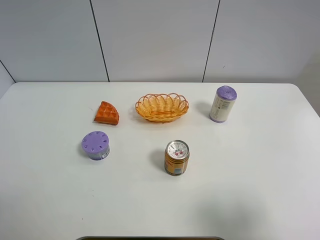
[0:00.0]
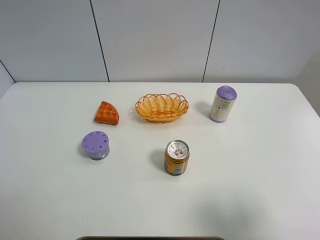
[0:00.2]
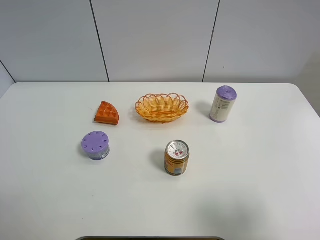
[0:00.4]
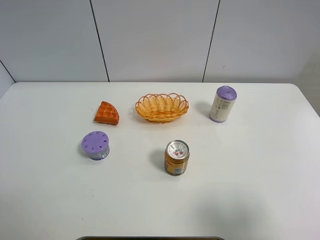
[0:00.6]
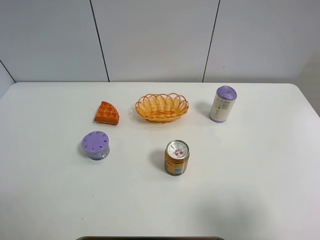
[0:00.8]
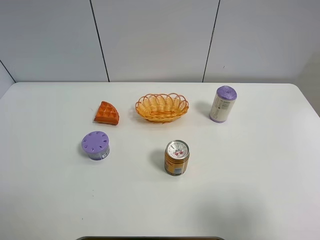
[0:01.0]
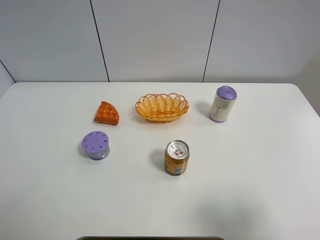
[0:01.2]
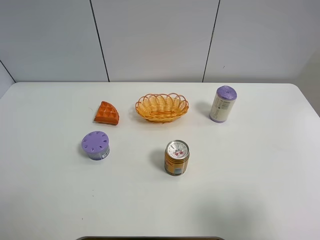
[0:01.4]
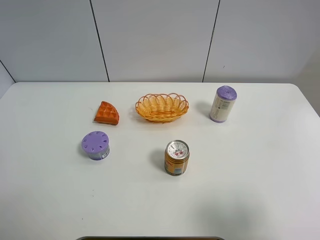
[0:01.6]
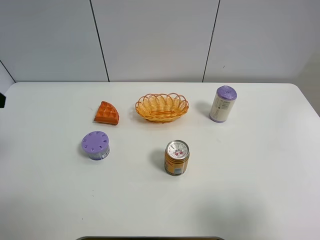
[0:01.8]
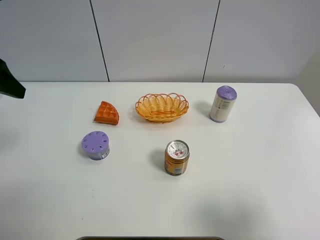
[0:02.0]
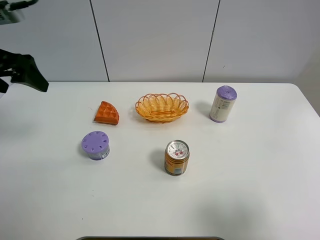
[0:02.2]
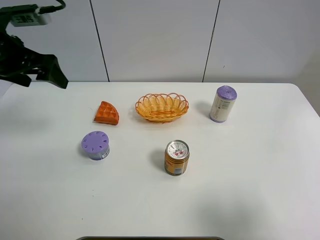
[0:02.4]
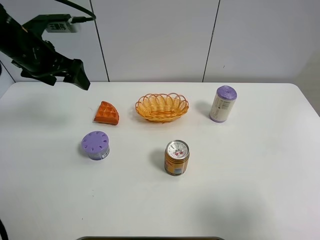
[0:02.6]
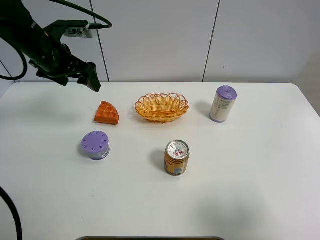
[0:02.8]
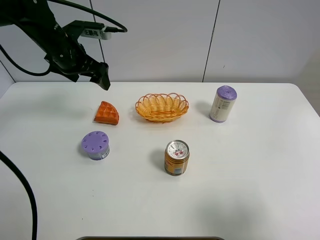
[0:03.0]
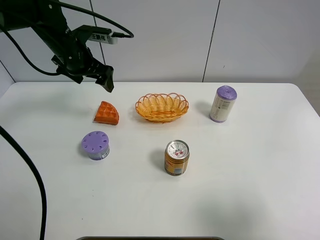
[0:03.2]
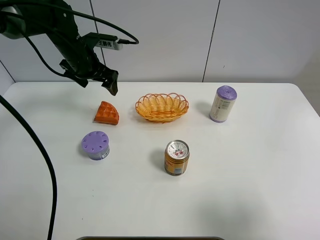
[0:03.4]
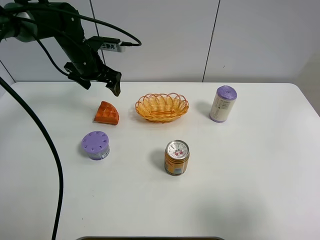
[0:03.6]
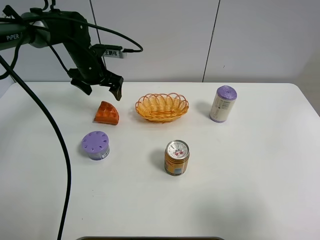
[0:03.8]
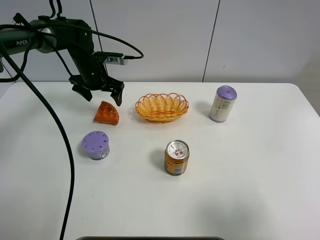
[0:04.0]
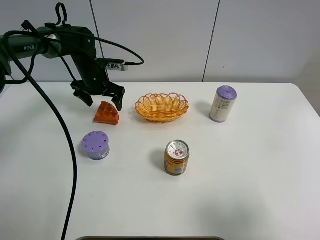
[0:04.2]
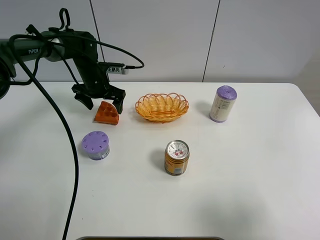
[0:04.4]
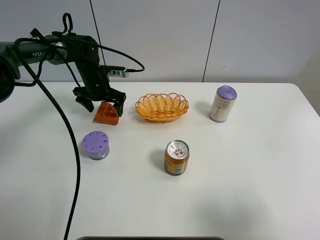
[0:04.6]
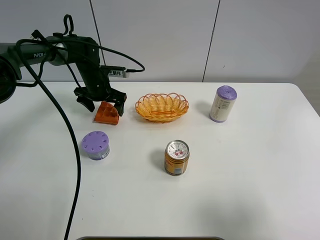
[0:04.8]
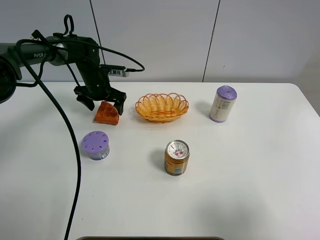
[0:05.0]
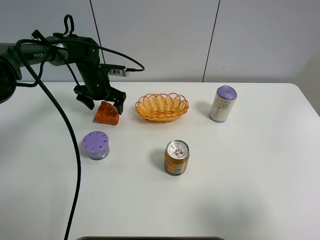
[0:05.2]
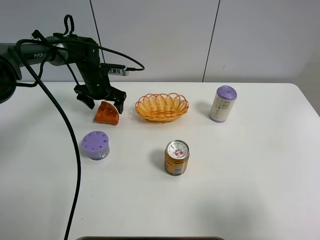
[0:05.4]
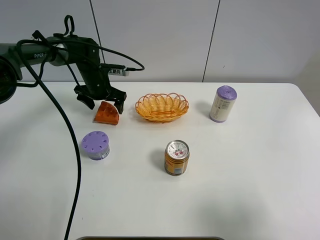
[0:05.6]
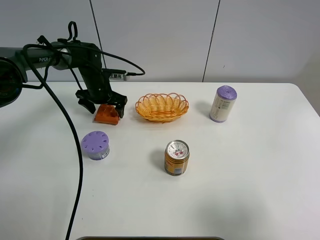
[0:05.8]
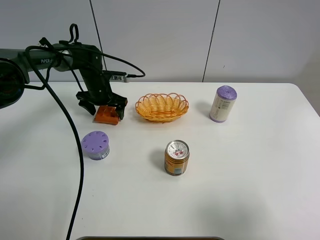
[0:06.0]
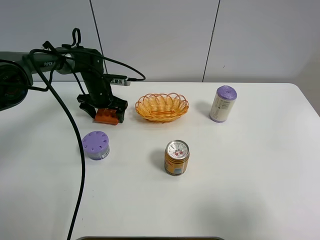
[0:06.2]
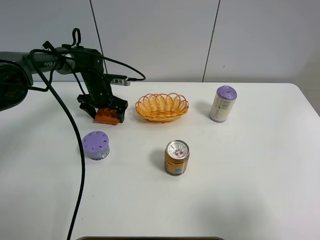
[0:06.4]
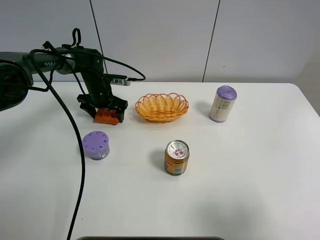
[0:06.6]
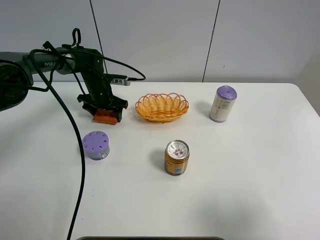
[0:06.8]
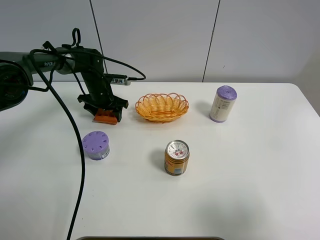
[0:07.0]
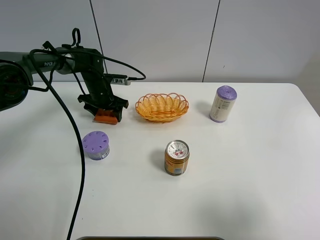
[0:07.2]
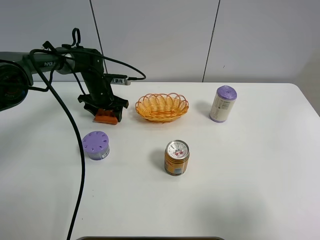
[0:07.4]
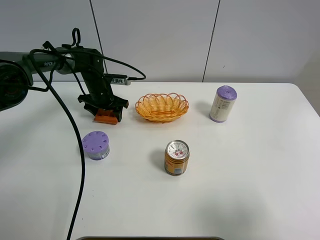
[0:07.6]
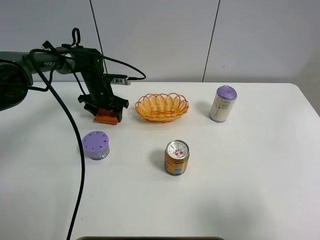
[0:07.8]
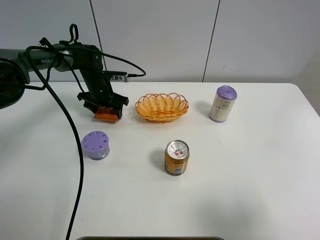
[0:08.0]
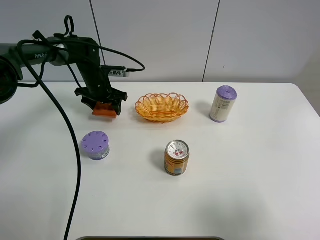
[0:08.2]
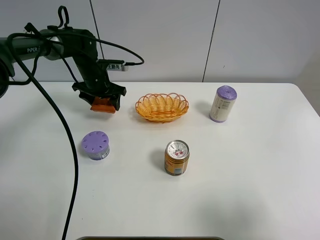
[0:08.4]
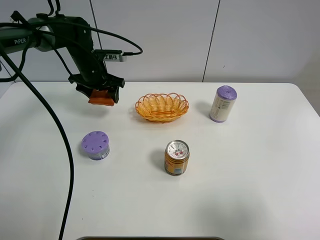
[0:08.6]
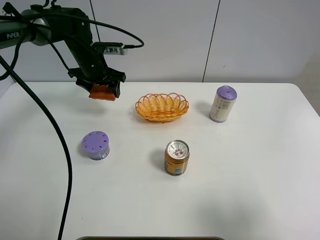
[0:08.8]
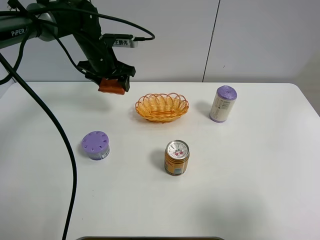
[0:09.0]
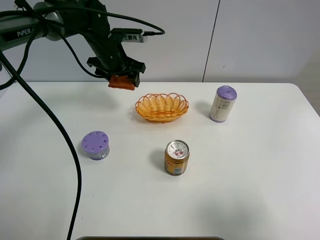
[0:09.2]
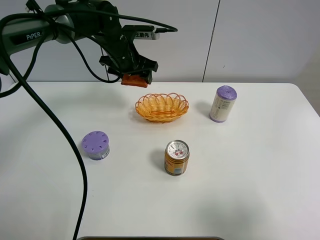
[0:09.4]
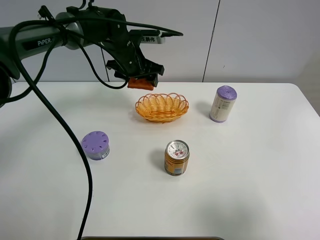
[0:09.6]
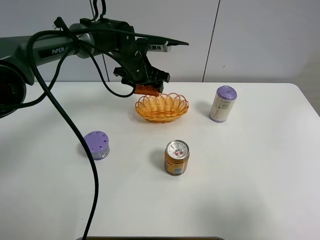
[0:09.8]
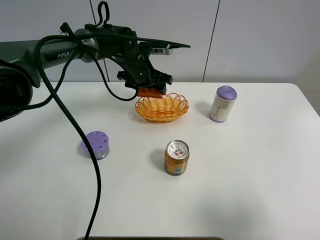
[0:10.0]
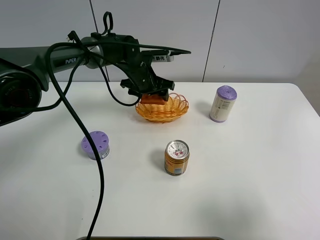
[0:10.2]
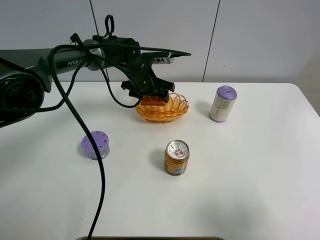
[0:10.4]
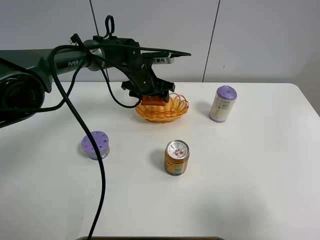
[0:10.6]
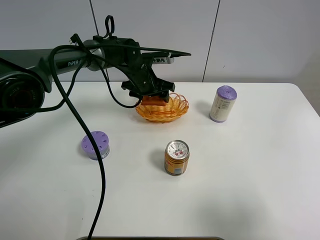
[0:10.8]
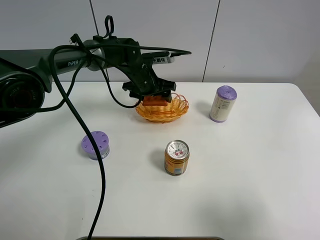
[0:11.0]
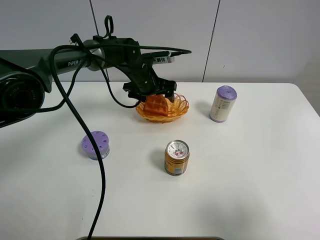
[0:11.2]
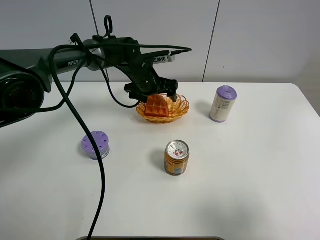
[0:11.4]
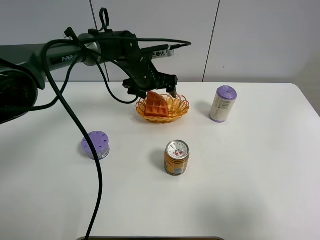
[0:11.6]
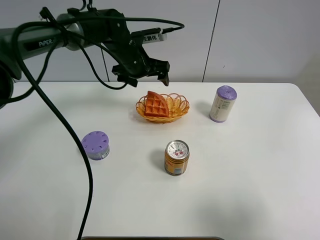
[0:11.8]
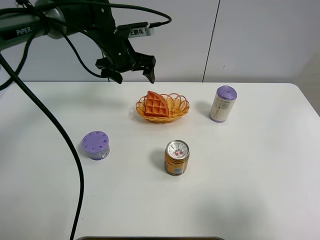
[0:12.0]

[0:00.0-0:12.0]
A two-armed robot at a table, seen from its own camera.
Task of the whole recording: Put the bakery in the basket.
0:01.6 to 0:03.0: The left gripper is displaced forward and to the right by roughly 30 cm.
0:03.0 to 0:04.4: The left gripper travels downward and forward by approximately 15 cm.
0:04.4 to 0:06.0: The grippers move only a little.
0:06.0 to 0:07.6: The left gripper closes up.
0:07.6 to 0:09.0: The left gripper travels upward by about 15 cm.
0:09.0 to 0:10.4: The left gripper travels to the right and downward by approximately 10 cm.
0:10.4 to 0:12.0: The left gripper travels upward and to the left by roughly 10 cm, and opens.

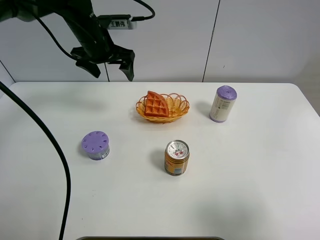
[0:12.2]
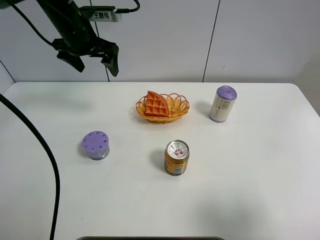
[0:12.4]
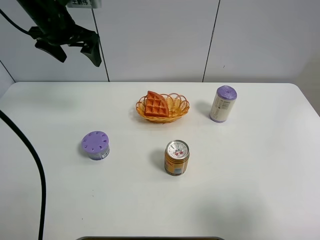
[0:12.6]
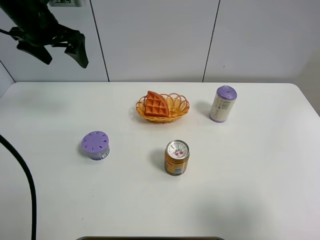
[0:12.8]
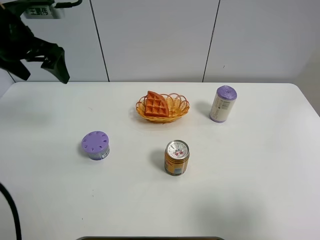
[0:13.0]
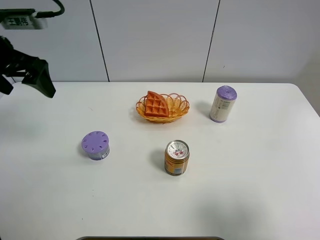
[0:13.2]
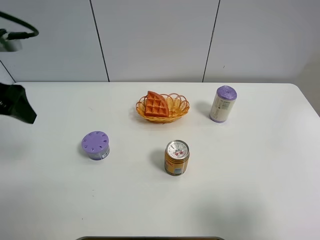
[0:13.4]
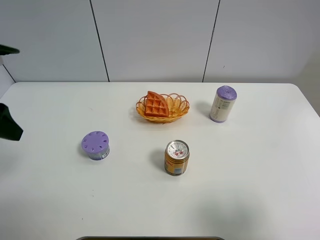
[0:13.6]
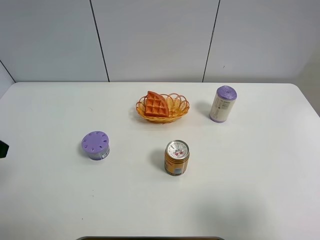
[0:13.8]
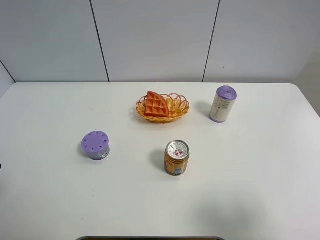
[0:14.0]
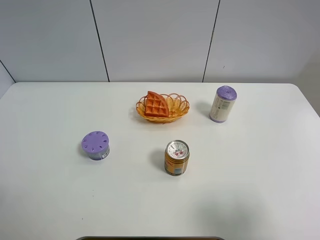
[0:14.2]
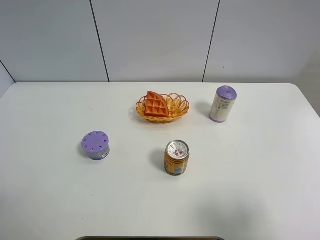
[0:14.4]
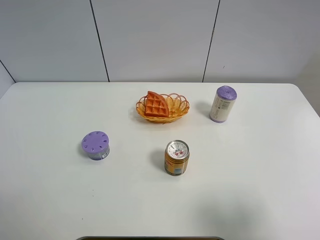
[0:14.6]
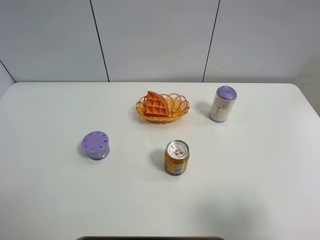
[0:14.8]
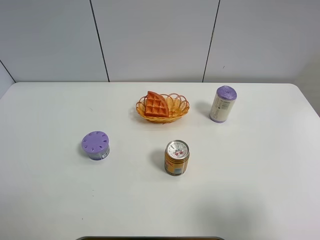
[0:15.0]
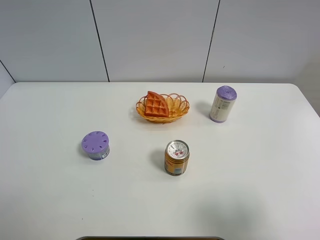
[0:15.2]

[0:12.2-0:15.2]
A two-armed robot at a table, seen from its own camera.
Task of the whole recording: Put the bakery in the basket.
0:12.2 to 0:13.8: The left gripper heads backward and to the left, covering approximately 35 cm.

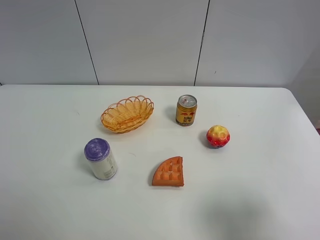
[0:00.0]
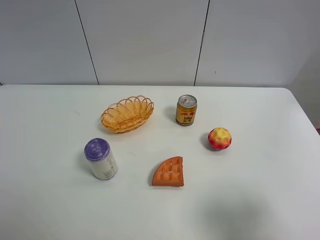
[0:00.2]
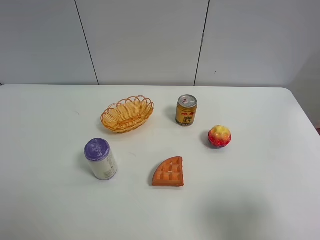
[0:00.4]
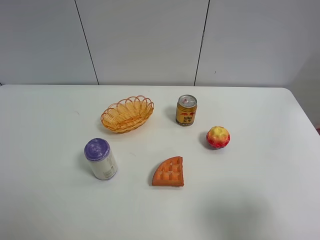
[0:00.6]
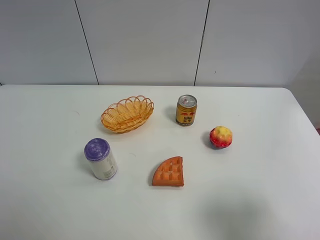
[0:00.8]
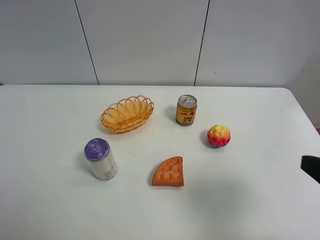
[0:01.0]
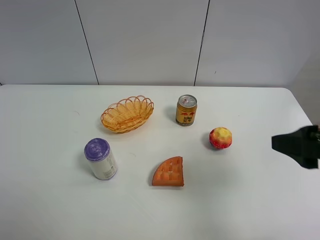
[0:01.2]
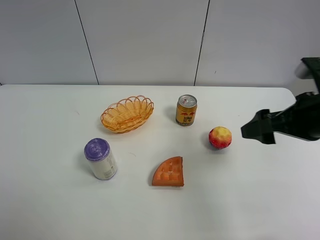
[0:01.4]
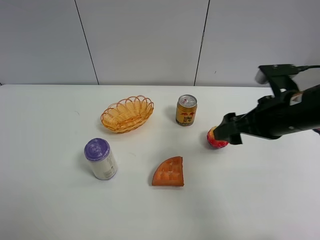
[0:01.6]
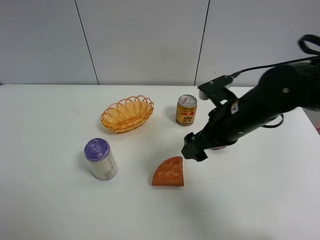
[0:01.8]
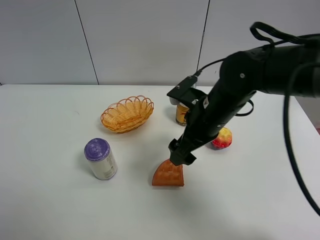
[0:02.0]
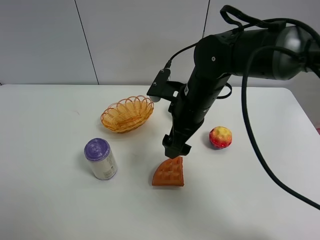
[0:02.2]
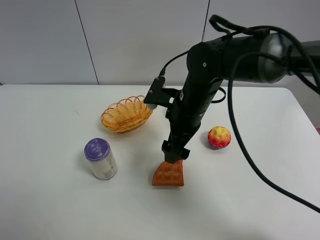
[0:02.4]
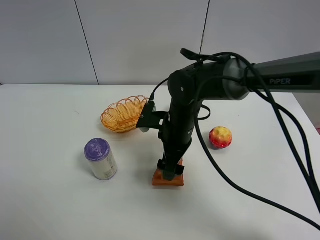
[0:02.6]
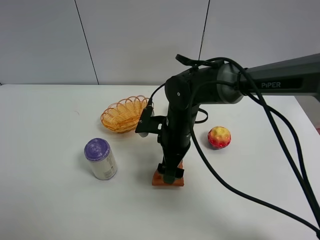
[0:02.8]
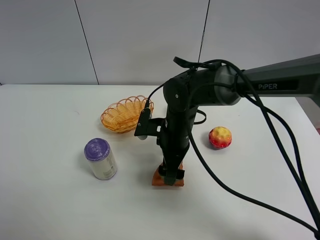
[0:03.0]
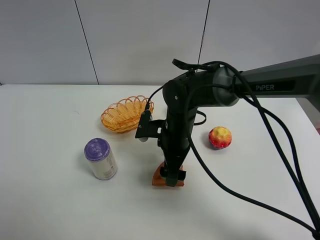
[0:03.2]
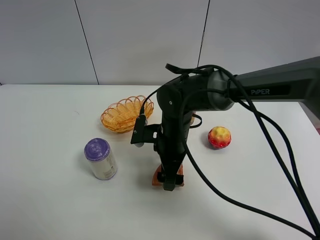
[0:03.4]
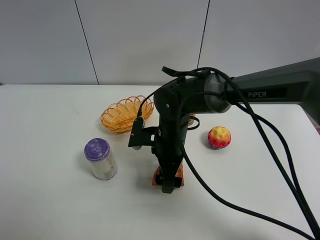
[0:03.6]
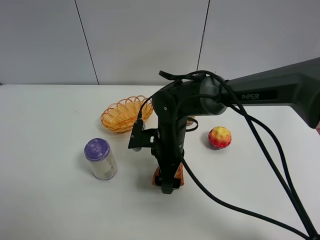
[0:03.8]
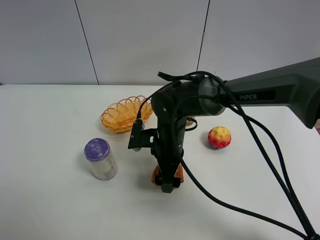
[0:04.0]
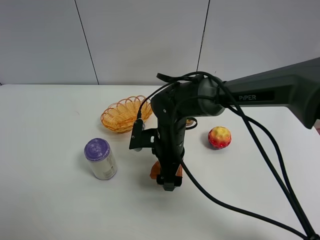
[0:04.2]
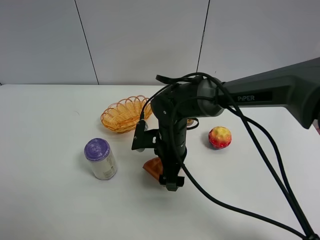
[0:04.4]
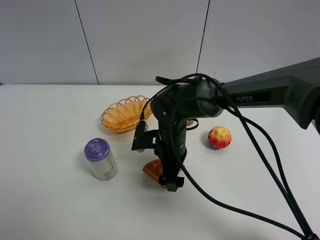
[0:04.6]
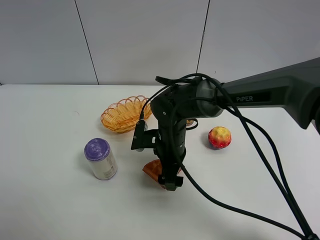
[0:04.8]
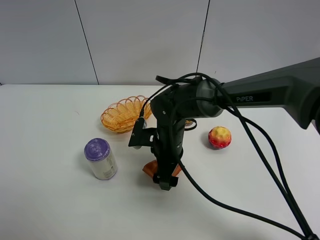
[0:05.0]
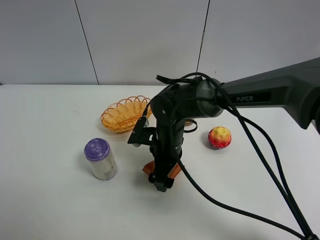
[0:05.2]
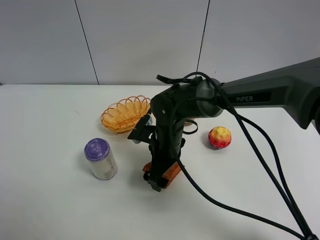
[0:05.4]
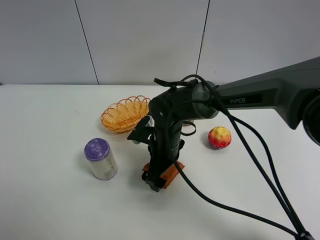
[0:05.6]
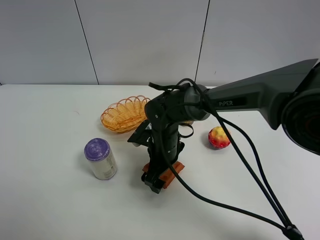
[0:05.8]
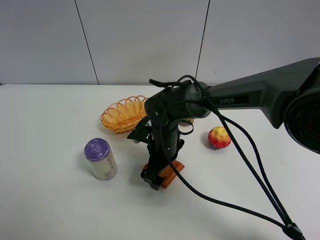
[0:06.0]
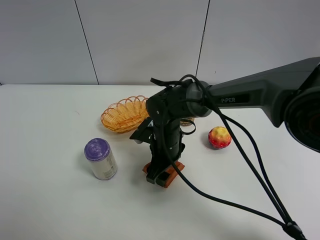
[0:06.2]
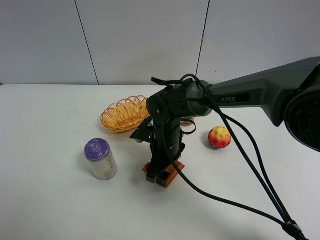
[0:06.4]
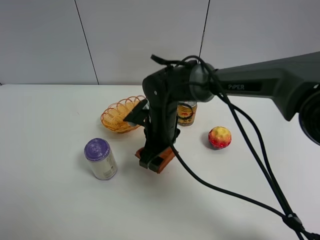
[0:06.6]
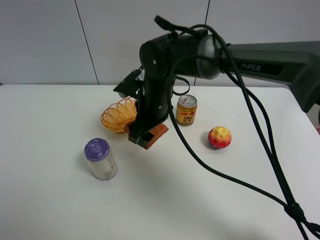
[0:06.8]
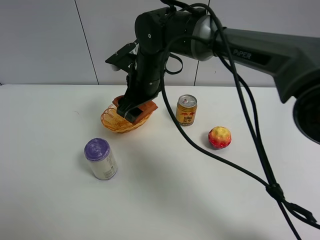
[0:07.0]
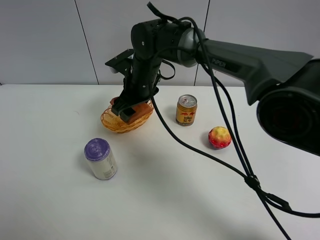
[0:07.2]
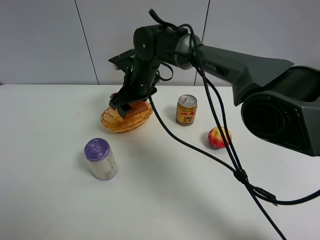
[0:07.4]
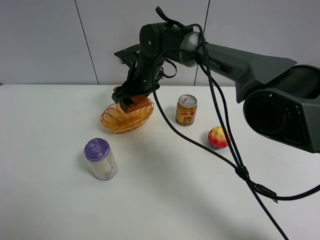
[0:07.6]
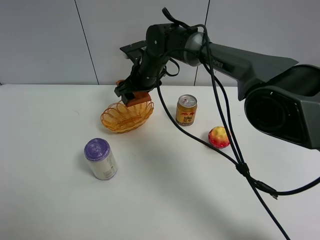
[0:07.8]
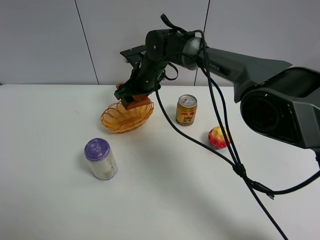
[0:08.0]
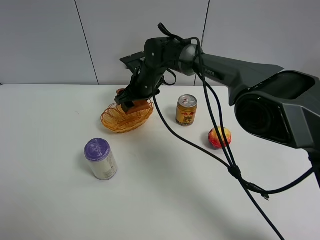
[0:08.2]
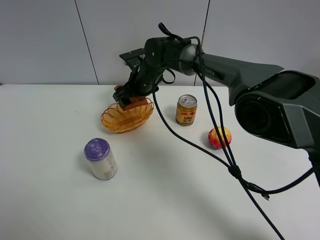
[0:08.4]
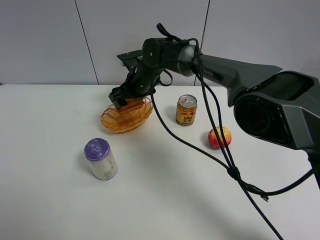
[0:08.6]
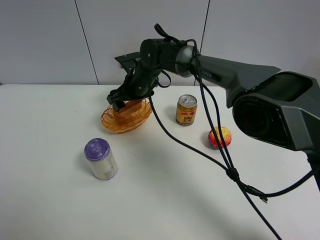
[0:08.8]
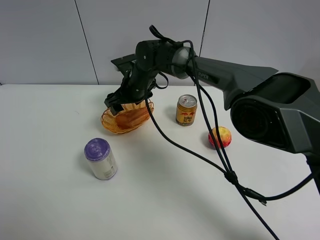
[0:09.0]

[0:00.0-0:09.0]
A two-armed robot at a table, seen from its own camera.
Task of the whole recording: Put the bakery in the basket.
Step, 0:00.0 to 0:06.0: Grasp the bread with right gripper.
0:00.0 to 0:01.6: The right gripper shifts approximately 25 cm forward and to the left.
0:01.6 to 0:03.0: The right gripper goes about 20 cm to the left and downward.
0:03.0 to 0:04.4: The grippers stay close to where they were, moving slightly.
0:06.0 to 0:07.6: The right gripper goes some 15 cm forward and upward, and closes.
0:07.6 to 0:09.0: There are only small adjustments of the grippers.
